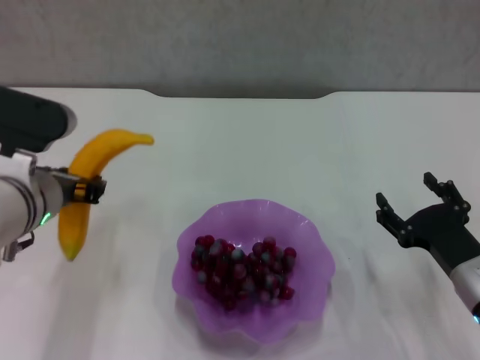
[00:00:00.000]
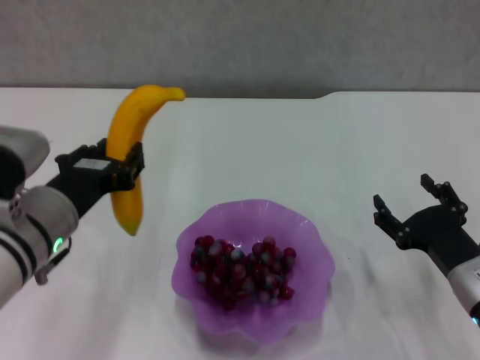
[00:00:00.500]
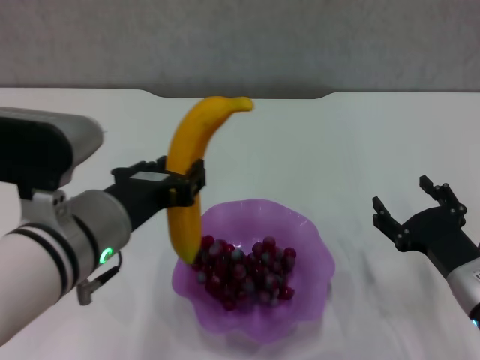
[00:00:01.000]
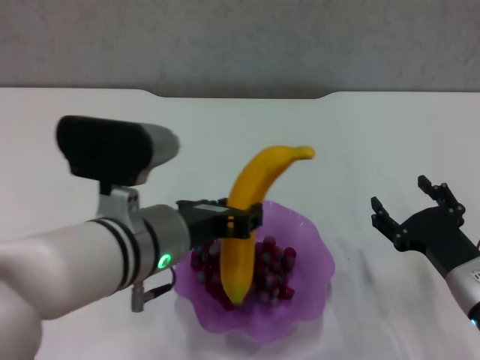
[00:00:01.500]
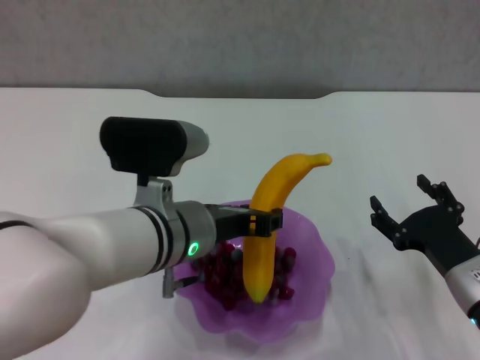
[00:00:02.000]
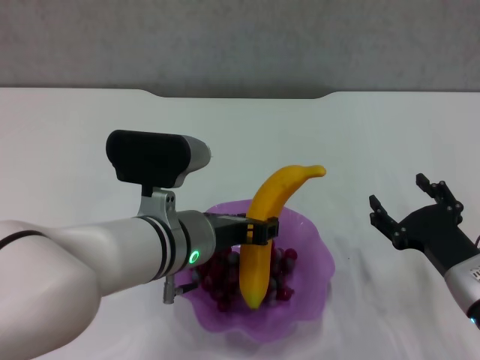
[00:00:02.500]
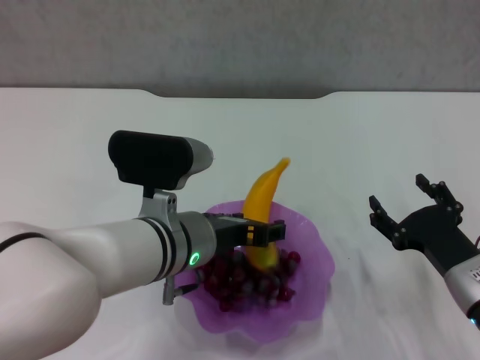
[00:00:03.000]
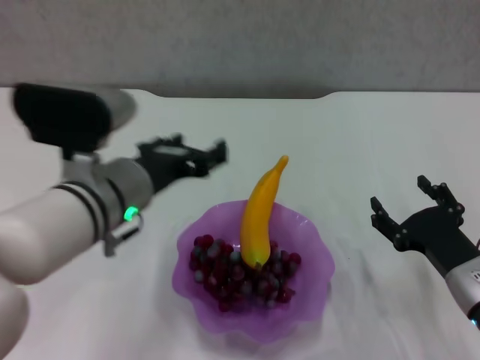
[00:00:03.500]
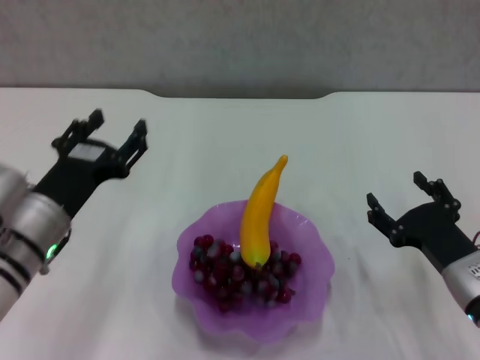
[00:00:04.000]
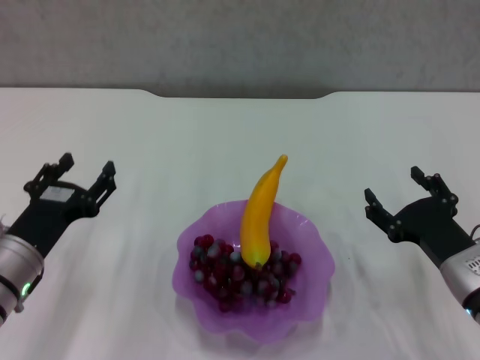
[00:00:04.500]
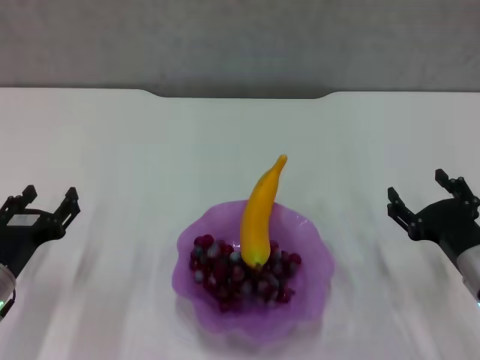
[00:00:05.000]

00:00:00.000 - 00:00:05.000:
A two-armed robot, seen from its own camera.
Step, 00:00:00.000 - 00:00:03.000: Place the banana in the purple plate with left gripper.
00:00:00.000 - 00:00:02.500: The left gripper shifts approximately 10 cm to the right.
00:00:02.500 - 00:00:05.000: The left gripper travels to the left and downward by roughly 20 cm, and opens up.
